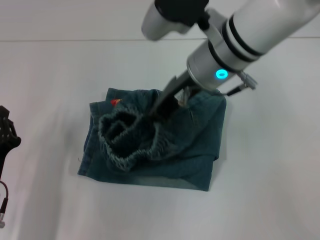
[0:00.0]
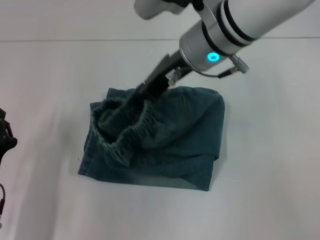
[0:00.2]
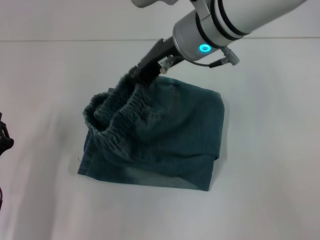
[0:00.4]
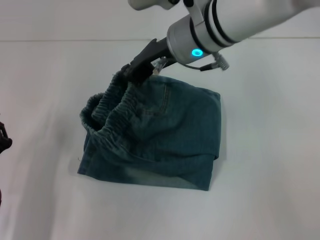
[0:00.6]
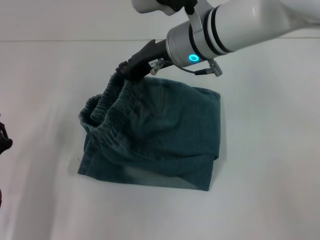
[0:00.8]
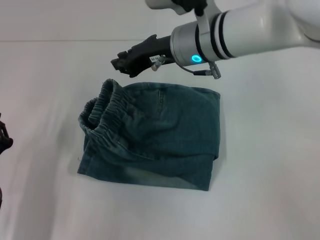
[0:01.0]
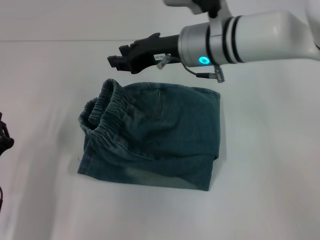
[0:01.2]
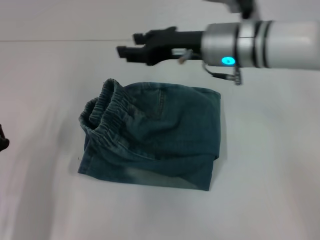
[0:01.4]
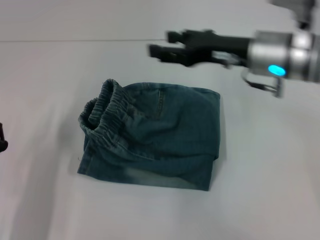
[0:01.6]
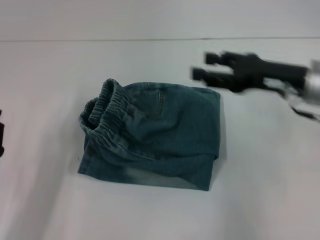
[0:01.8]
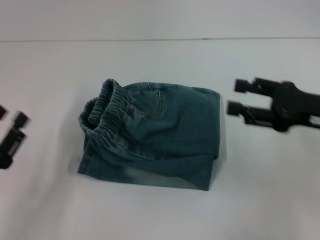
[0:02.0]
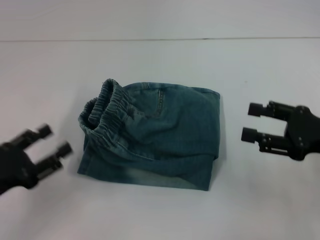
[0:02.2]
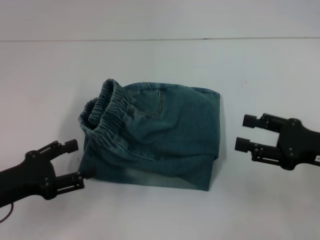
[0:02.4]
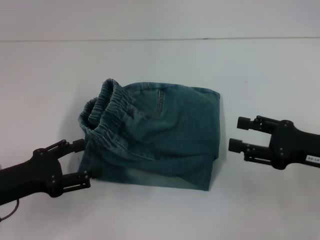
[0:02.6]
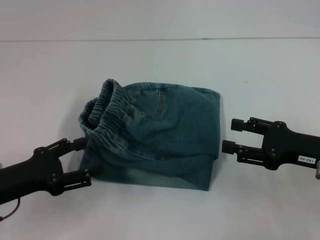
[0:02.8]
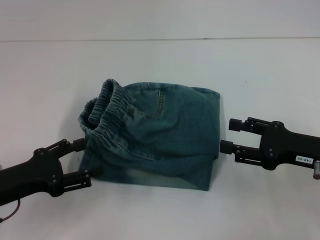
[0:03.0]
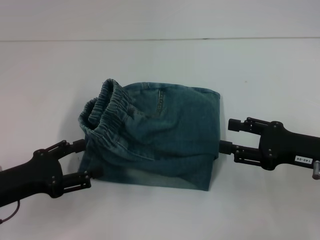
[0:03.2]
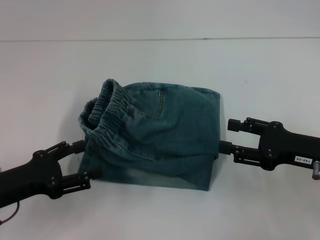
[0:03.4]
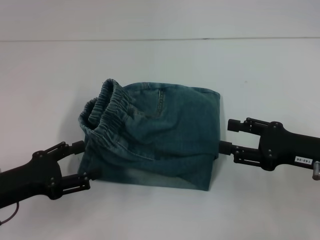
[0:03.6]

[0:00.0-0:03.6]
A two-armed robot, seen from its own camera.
0:00.0 to 0:01.8: The right gripper goes about 15 cm to the right, and opens its fingers.
0:01.8 to 0:03.6: The right gripper heads backward and downward, covering about 10 cm, while the left gripper changes place by about 5 cm, and opens up.

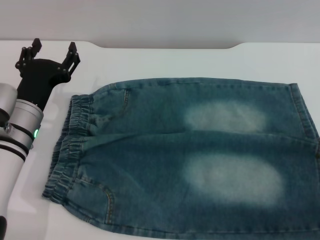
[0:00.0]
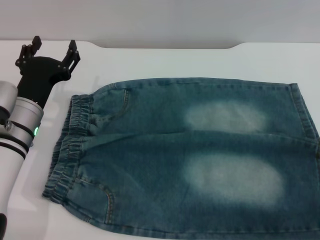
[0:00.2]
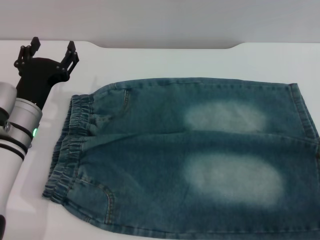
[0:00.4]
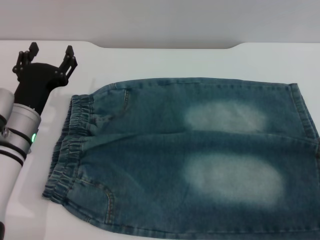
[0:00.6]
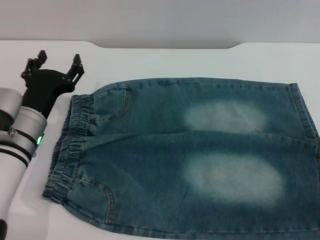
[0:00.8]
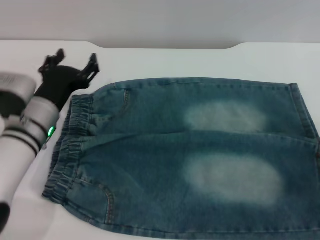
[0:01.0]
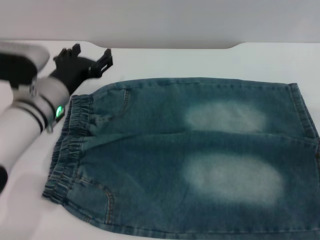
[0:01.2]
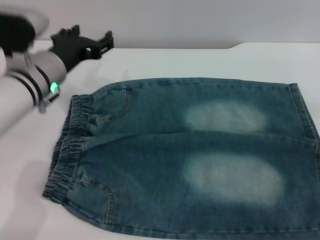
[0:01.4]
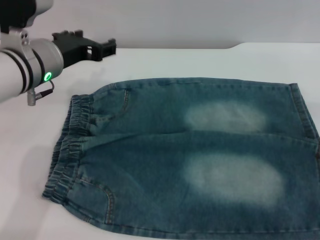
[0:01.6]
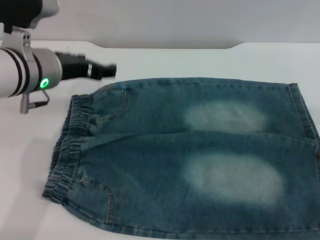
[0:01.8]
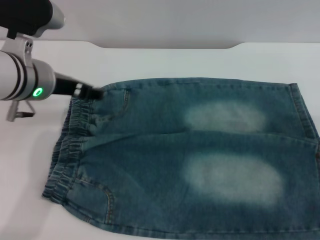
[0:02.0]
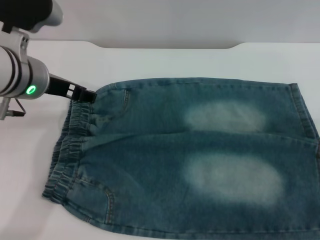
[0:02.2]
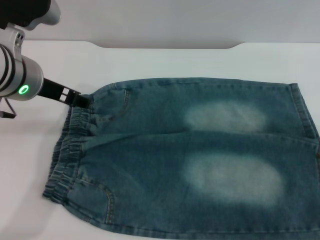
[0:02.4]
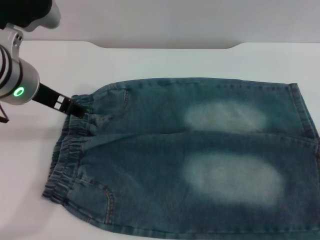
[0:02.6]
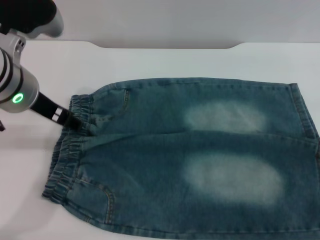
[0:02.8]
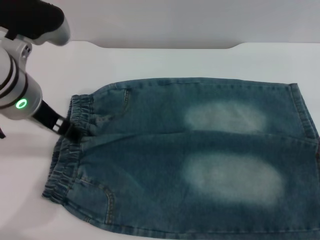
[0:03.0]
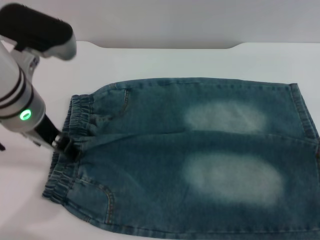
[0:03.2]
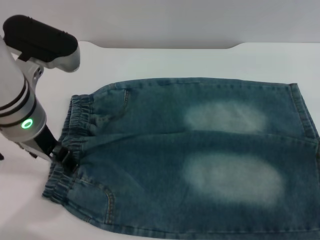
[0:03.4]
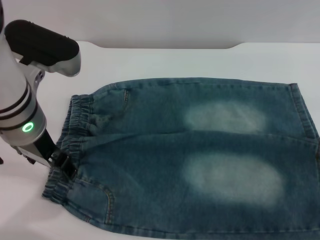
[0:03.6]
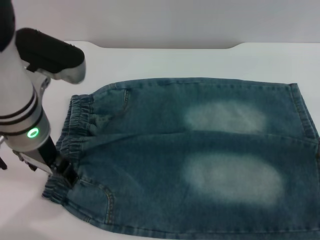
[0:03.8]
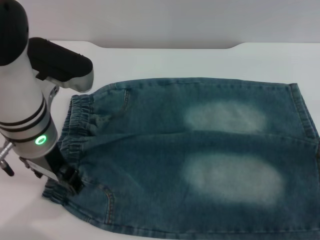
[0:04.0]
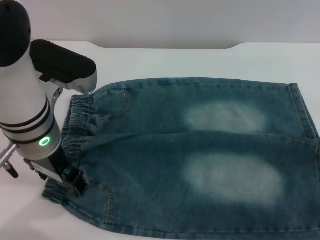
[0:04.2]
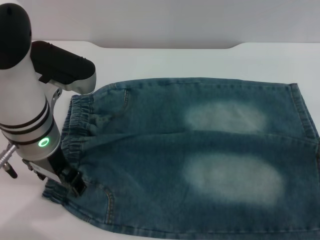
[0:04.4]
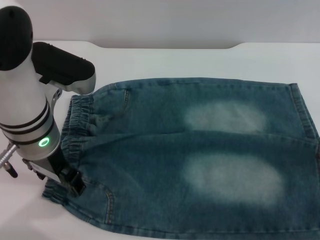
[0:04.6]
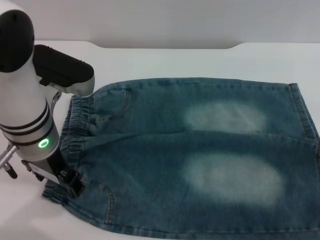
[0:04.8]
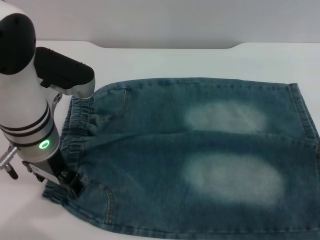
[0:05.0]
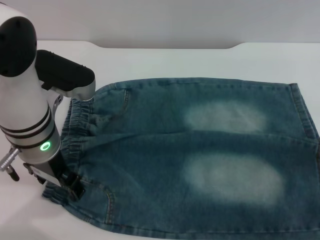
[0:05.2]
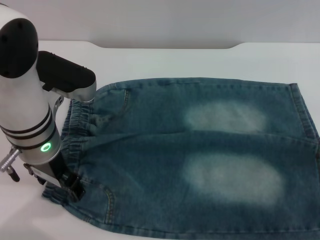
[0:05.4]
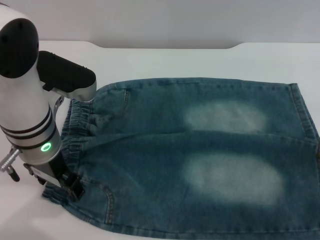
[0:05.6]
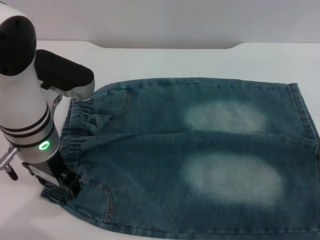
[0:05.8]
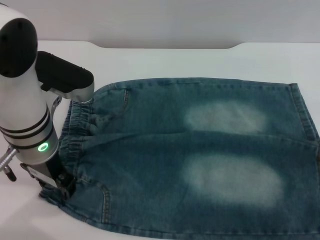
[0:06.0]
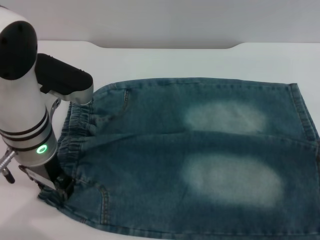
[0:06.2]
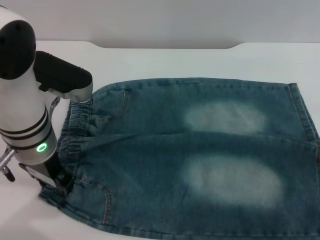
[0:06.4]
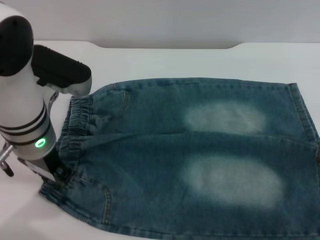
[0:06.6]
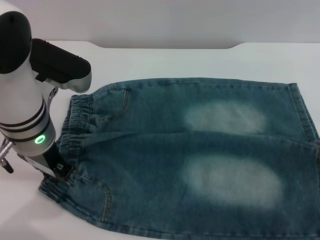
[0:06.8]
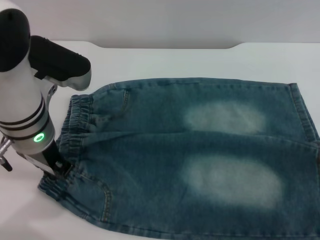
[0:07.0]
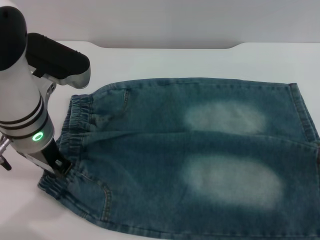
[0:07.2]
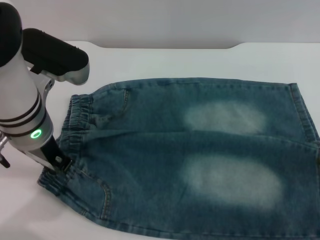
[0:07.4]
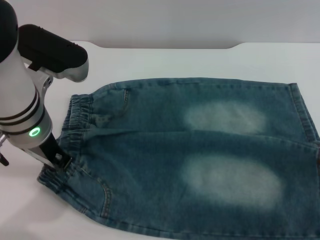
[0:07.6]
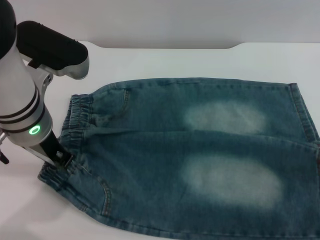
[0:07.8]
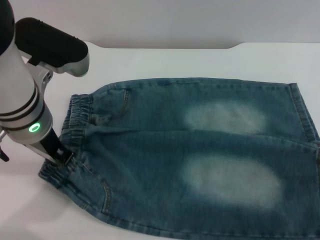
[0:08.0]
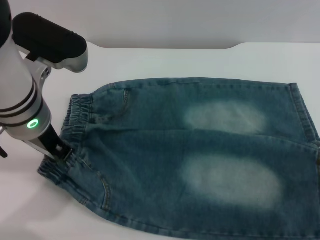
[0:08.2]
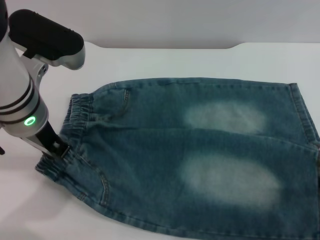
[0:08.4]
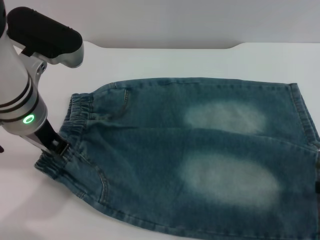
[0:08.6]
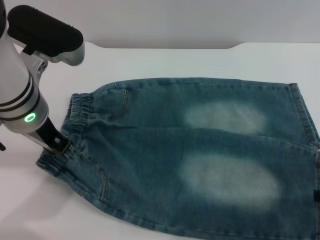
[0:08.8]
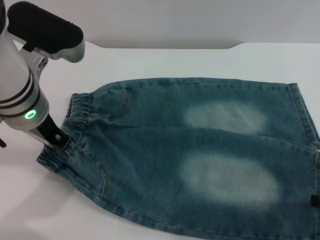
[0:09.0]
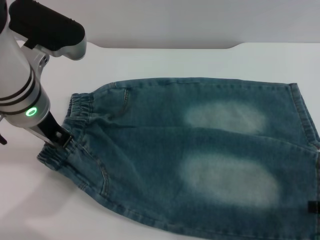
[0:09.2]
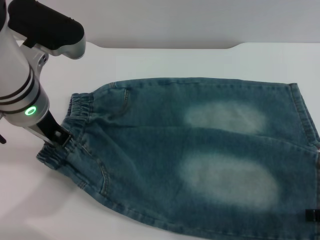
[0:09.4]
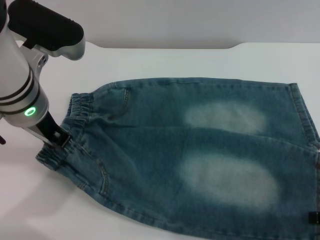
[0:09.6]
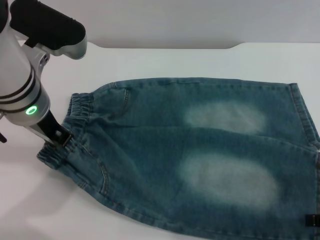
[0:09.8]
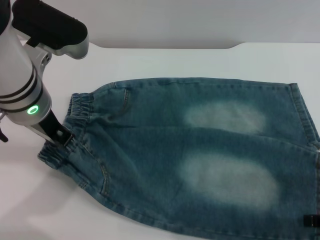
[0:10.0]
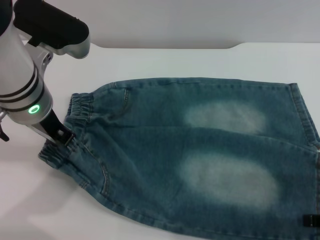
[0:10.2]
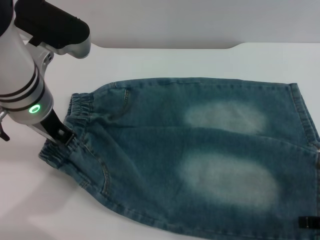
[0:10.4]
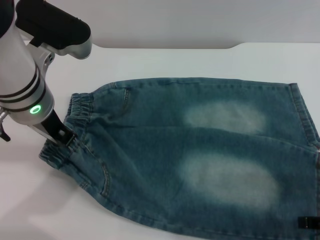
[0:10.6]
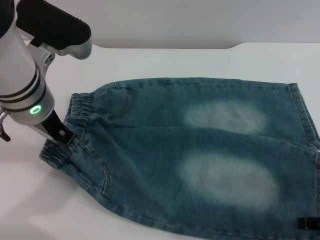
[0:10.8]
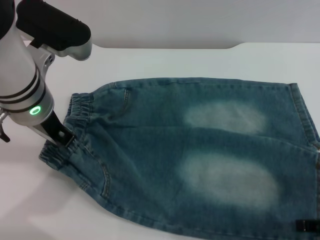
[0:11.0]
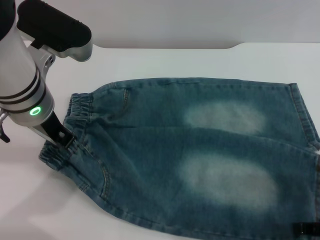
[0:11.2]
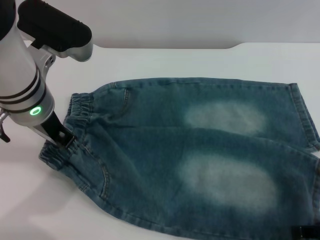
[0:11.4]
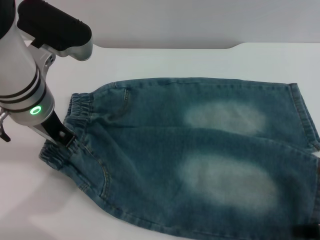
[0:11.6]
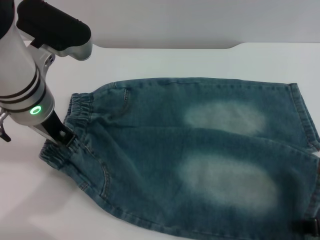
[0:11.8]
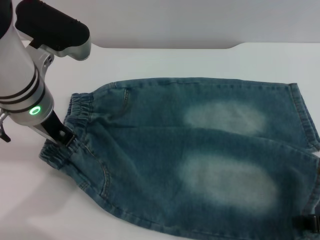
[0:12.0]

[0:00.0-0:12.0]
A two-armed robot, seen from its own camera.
0:00.0 to 0:01.6: The left gripper moves upward, roughly 10 cm.
0:01.6 to 0:03.0: The left gripper moves some 5 cm.
0:03.0 to 0:06.0: The grippers move only a little.
0:06.0 to 0:07.6: The left gripper closes.
0:07.6 to 0:09.0: The right gripper ends up roughly 5 cm from where it was.
0:09.0 to 0:10.4: There are only small adjustments of the grippers.
0:10.4 to 0:12.0: The right gripper closes up.

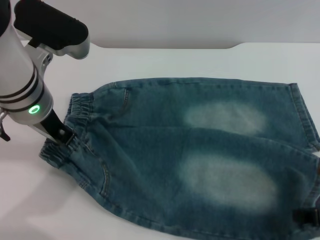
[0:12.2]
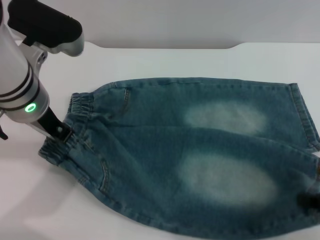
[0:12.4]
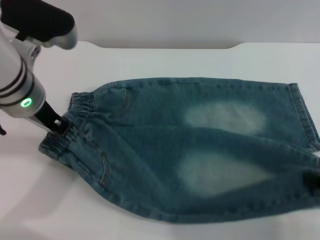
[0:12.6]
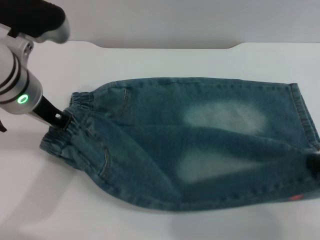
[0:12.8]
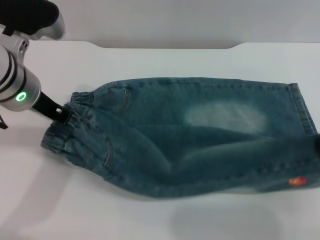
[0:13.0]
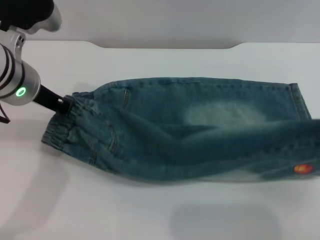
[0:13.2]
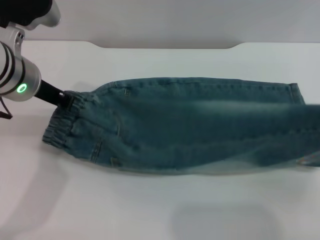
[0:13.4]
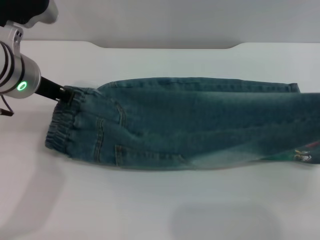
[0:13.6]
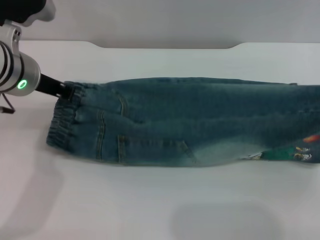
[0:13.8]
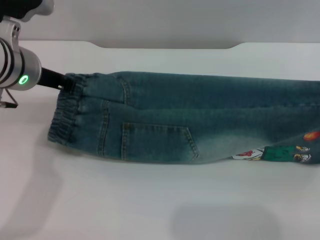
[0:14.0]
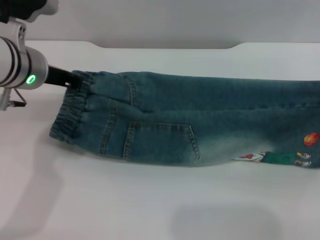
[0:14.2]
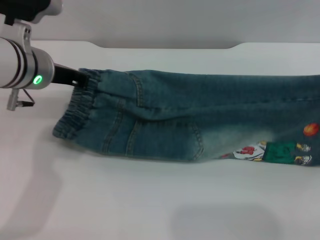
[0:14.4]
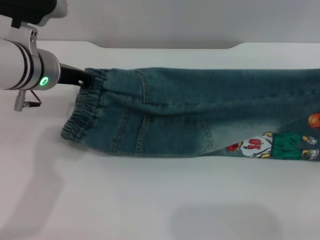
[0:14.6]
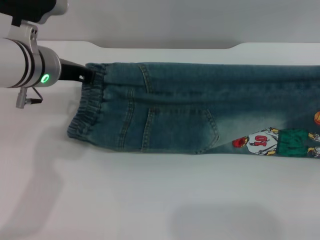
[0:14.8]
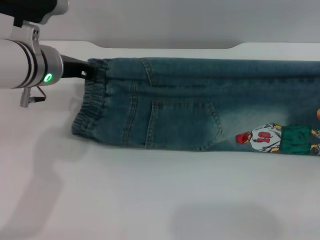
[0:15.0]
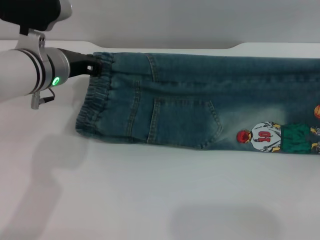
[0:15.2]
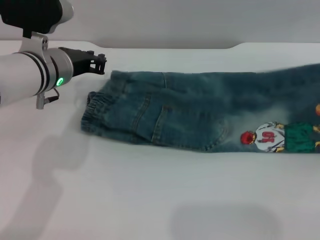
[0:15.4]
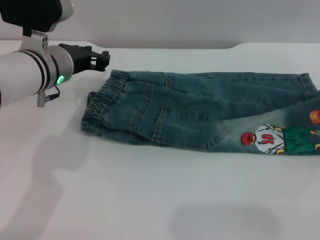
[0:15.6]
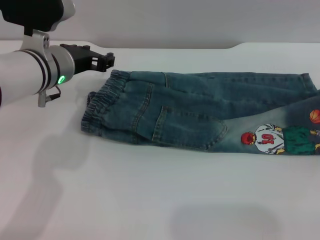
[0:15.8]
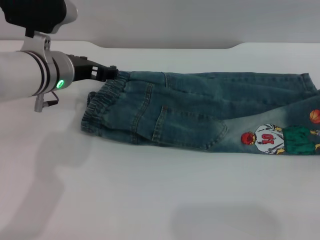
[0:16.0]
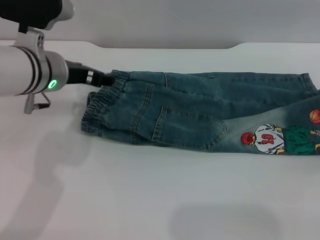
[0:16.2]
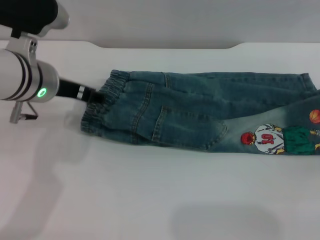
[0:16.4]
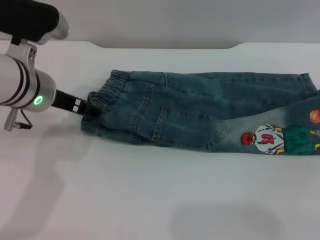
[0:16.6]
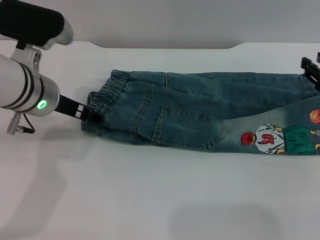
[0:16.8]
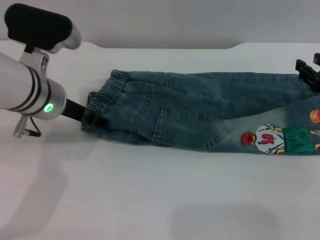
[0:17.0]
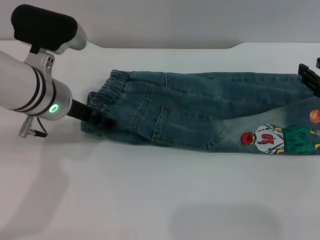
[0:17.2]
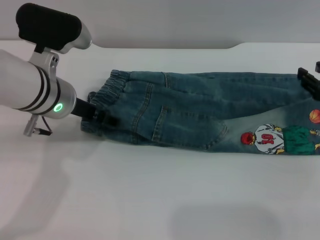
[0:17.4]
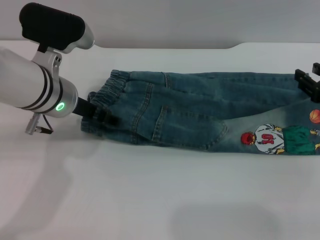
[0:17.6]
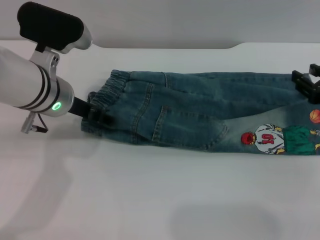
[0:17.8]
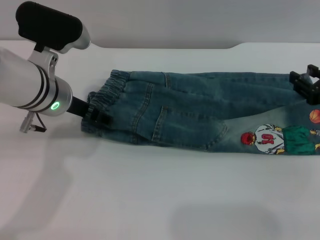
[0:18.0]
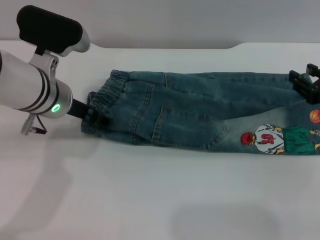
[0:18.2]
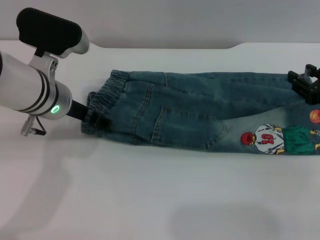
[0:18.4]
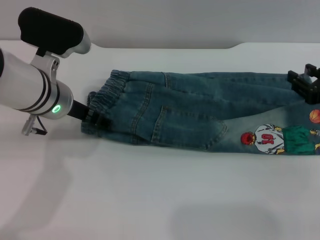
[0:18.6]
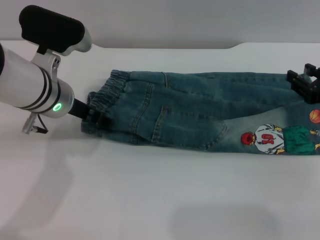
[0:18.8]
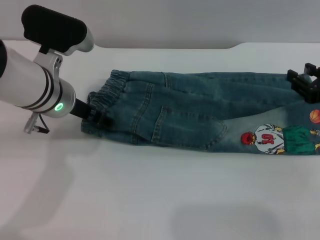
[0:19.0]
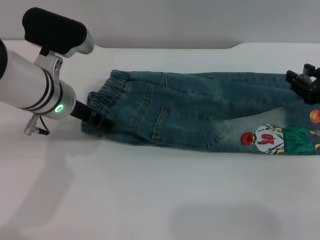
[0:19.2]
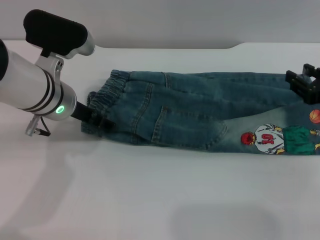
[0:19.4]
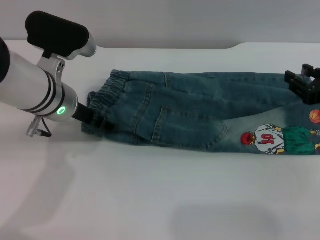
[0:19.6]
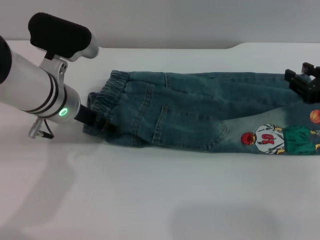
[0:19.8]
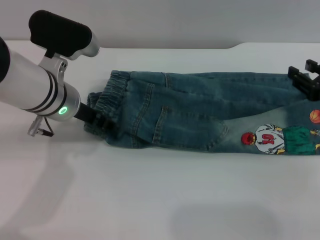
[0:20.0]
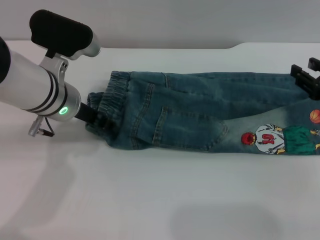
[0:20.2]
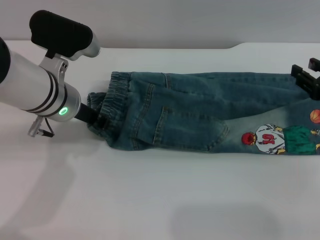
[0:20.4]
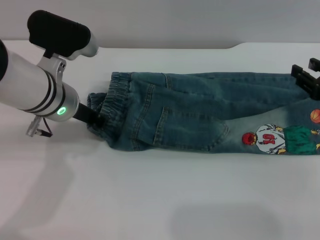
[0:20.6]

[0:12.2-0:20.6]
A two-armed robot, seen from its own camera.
Step, 0:12.2 to 0:20.0: Fold the bottom of the pants upward with both grippers.
0:12.2 to 0:13.6: The right gripper shifts some 5 cm upward.
0:13.6 to 0:15.0: The right gripper heads forward and downward, covering roughly 10 cm.
0:15.0 to 0:16.4: The right gripper opens up. Meanwhile the left gripper opens.
0:16.4 to 0:17.8: The right gripper shifts roughly 5 cm to the left.
0:17.8 to 0:19.2: Both grippers stay about where they are.
0:19.2 to 0:20.6: The left gripper closes.
